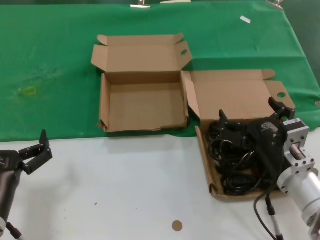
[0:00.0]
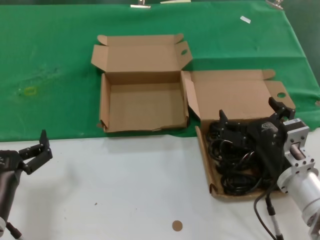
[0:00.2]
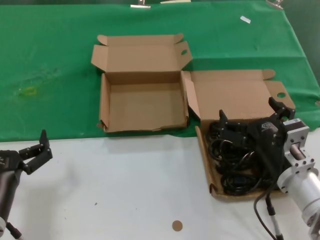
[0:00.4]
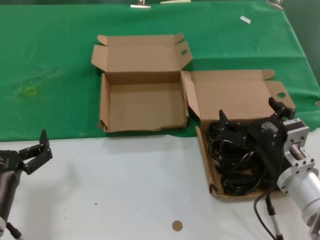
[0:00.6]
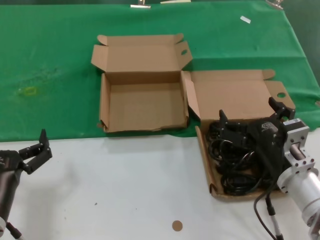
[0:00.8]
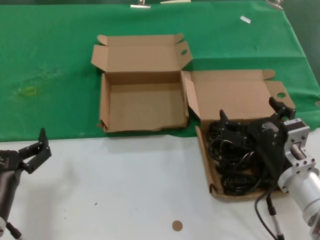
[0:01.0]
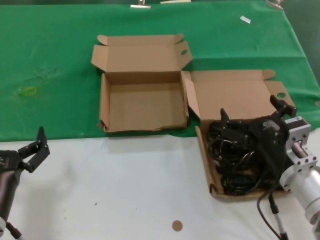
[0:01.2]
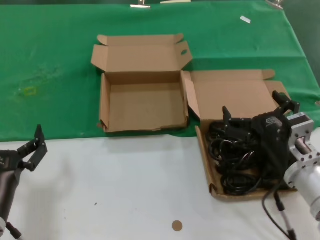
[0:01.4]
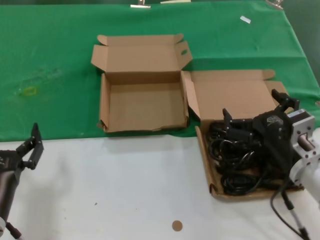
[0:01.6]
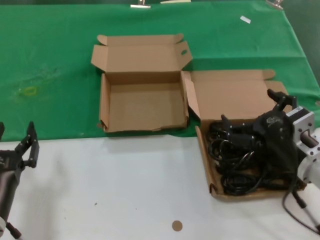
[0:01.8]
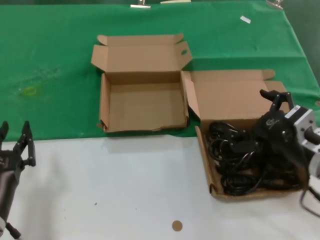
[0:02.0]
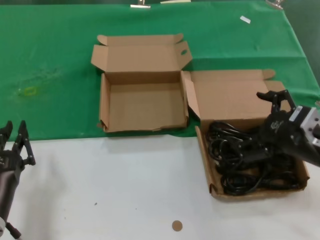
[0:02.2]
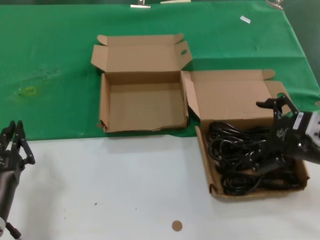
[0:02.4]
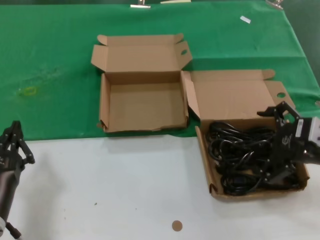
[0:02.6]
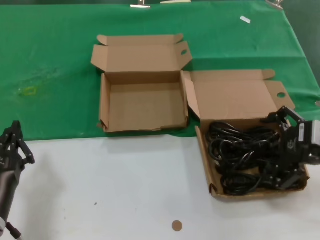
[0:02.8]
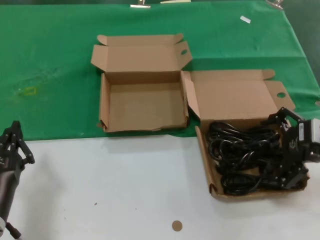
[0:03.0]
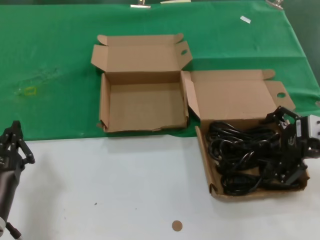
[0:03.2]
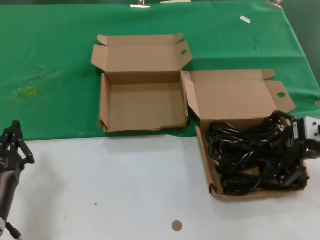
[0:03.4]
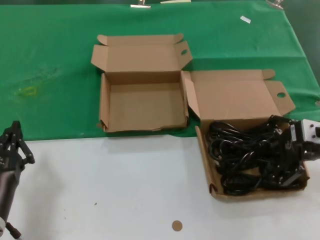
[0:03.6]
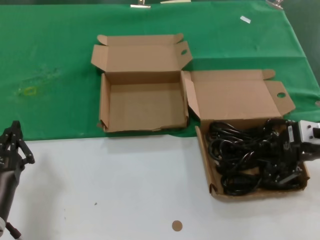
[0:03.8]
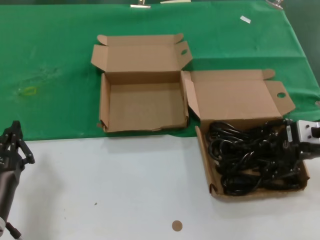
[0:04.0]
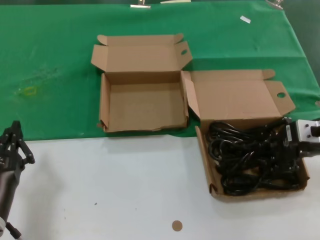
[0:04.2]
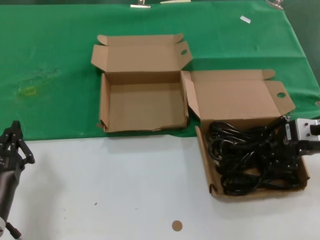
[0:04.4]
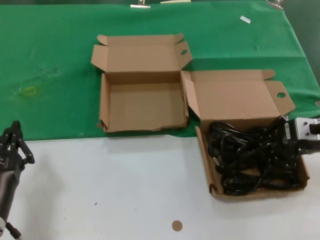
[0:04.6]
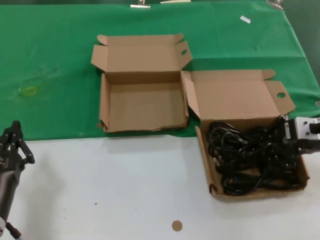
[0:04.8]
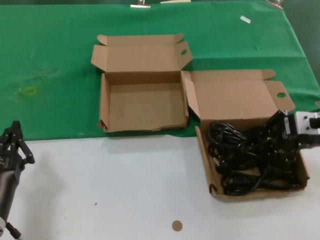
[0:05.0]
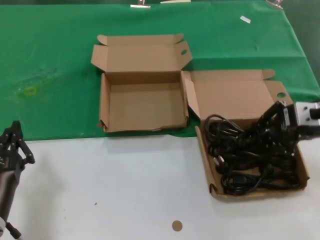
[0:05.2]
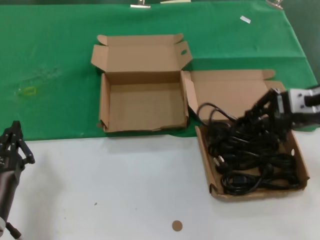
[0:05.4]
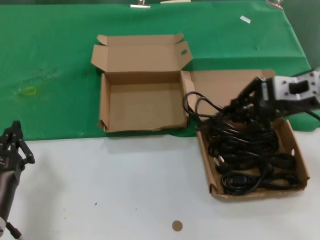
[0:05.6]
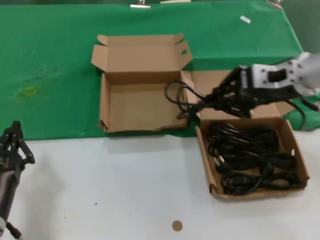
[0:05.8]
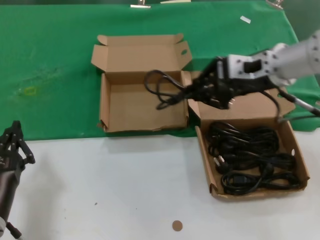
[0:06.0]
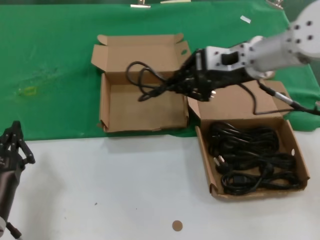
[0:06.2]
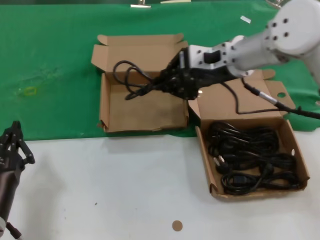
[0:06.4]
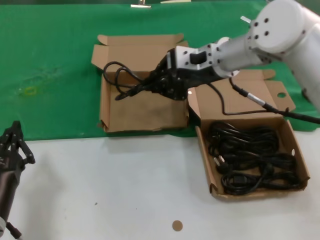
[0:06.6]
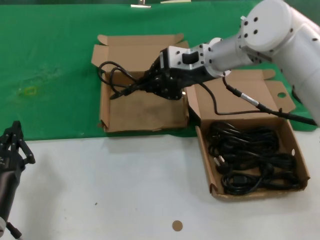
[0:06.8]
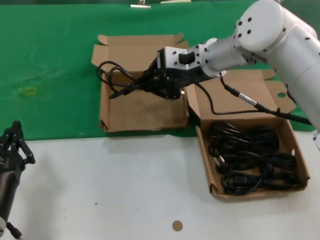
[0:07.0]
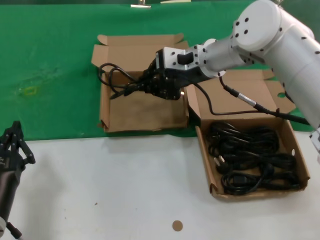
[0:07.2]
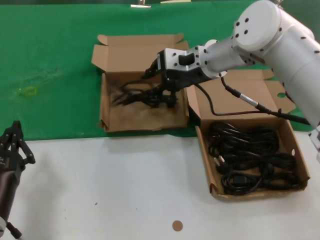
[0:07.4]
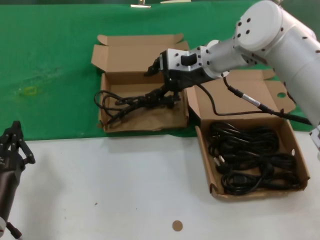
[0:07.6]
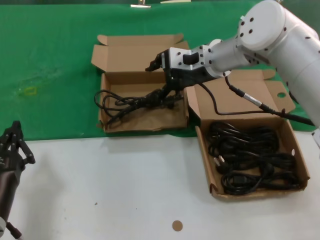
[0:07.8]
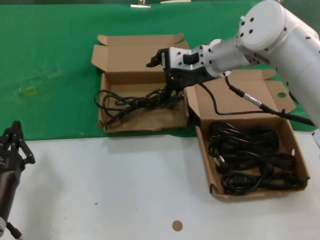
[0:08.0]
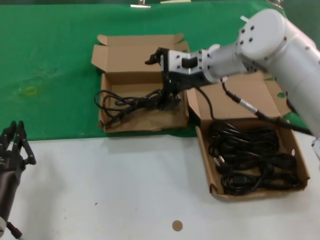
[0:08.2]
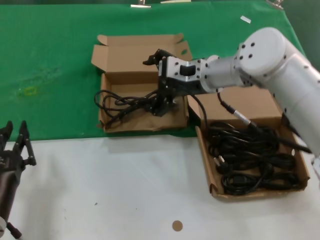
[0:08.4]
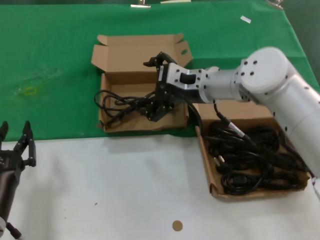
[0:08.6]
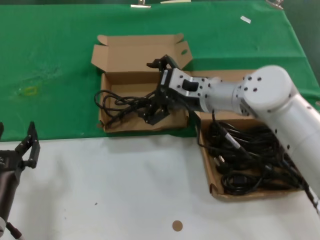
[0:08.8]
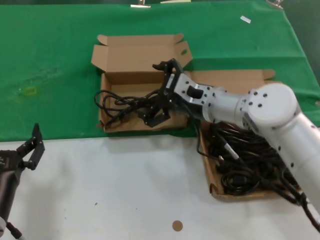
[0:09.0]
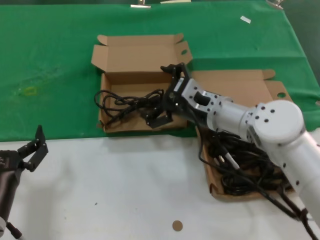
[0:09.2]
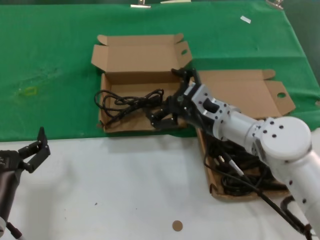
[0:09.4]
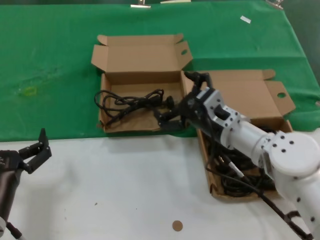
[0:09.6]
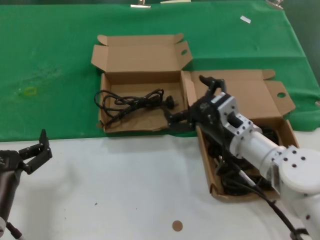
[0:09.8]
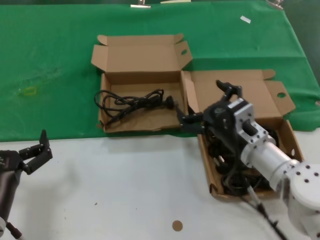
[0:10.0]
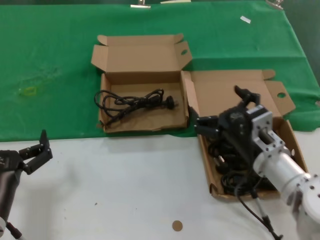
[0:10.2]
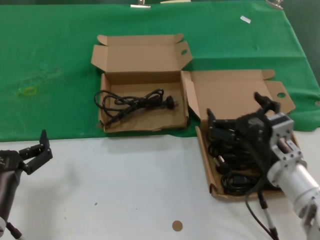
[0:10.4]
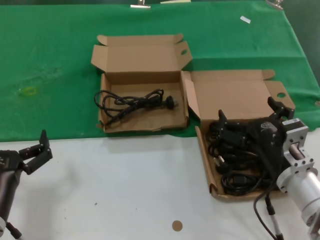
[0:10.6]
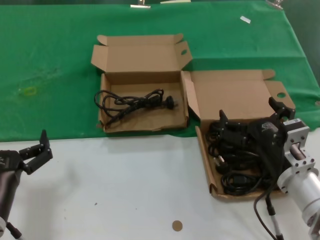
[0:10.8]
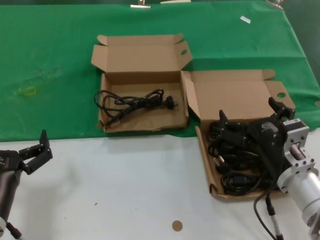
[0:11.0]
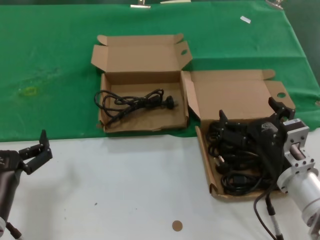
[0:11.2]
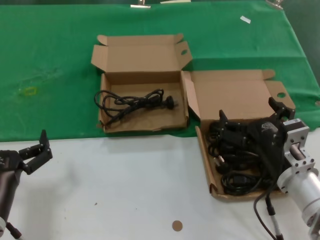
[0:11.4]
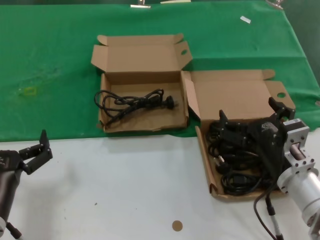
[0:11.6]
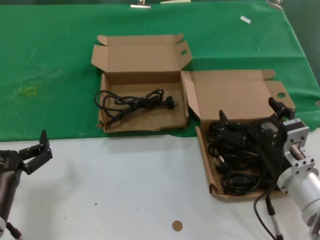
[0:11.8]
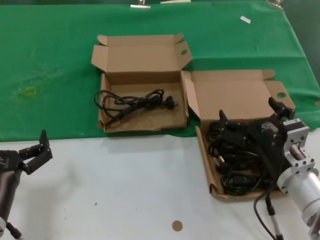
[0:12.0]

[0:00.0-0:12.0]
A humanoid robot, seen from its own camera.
Task of the whole recording: take the parts from the box containing them and put them into an empty box.
Step, 0:00.0 to 0:04.6: Grasp the data cable.
Step, 0:04.8 to 0:07.4: Place the data cable in the another box.
0:00.0 to 0:01.6: There are only small adjustments of the hands.
0:01.6 to 0:03.0: The right hand goes approximately 15 cm upward and to the right.
0:03.0 to 0:04.4: The right hand ends up approximately 5 cm from where it was.
0:04.4 to 0:06.0: The right hand travels to the left, upward and forward by about 15 cm.
0:06.0 to 0:07.6: The right hand is displaced to the left and forward by some 15 cm.
0:07.6 to 0:09.0: The right hand moves downward and backward, approximately 10 cm.
0:09.0 to 0:10.4: The right hand moves backward, downward and to the right, about 20 cm.
0:10.4 to 0:12.0: The hands stay close to where they were, moving slightly.

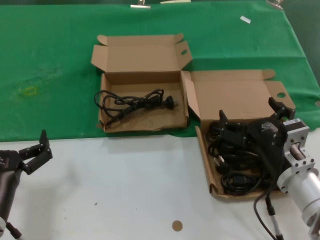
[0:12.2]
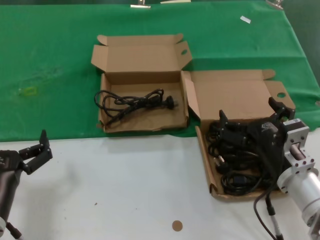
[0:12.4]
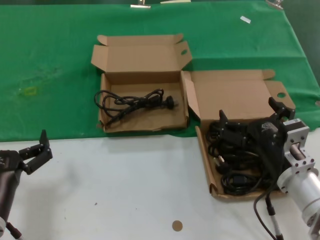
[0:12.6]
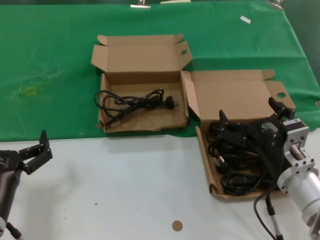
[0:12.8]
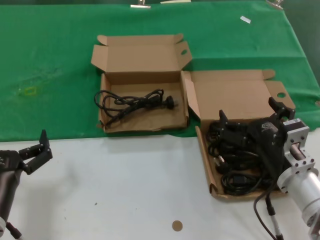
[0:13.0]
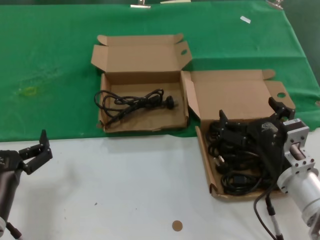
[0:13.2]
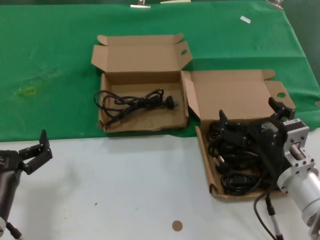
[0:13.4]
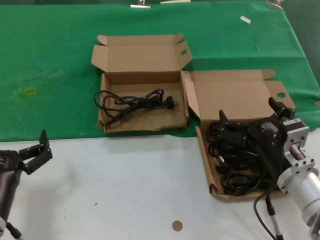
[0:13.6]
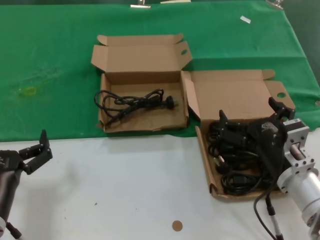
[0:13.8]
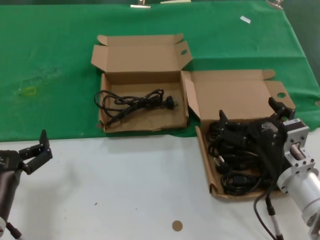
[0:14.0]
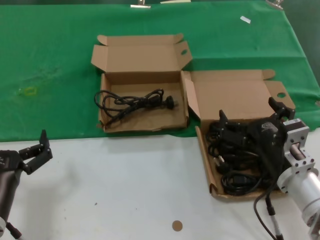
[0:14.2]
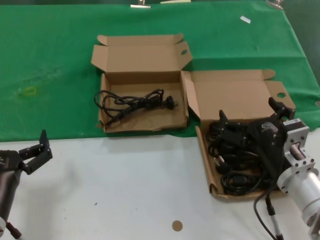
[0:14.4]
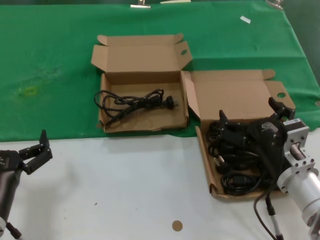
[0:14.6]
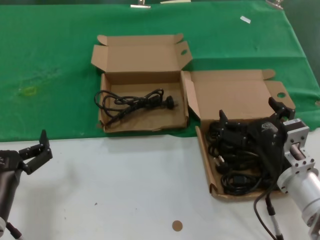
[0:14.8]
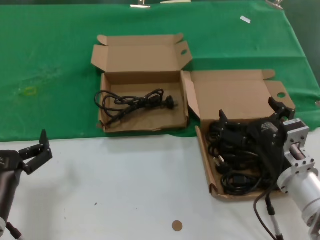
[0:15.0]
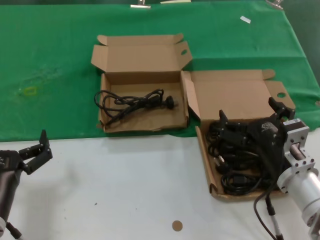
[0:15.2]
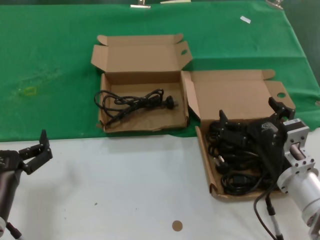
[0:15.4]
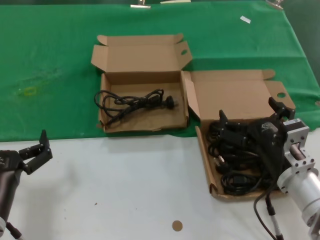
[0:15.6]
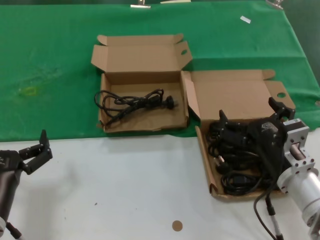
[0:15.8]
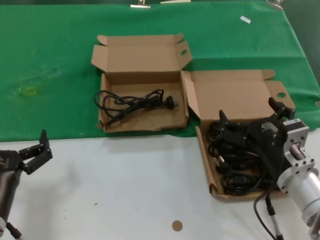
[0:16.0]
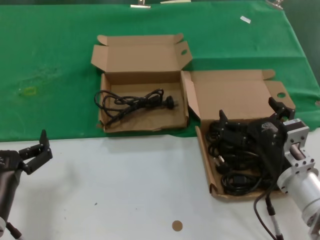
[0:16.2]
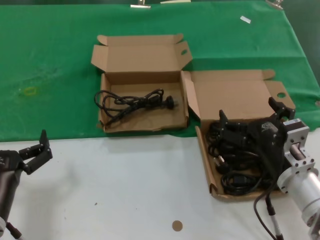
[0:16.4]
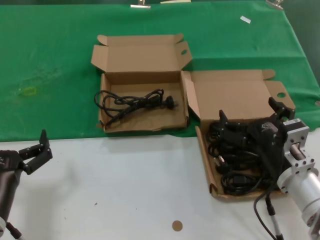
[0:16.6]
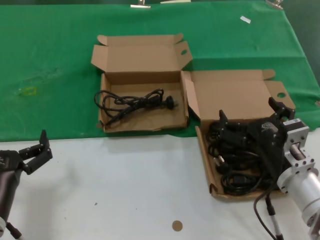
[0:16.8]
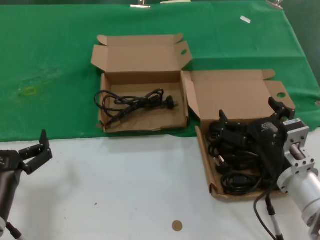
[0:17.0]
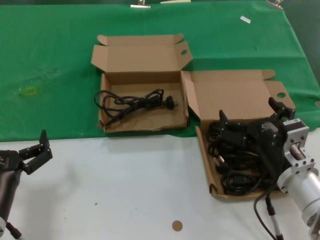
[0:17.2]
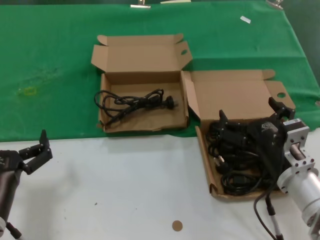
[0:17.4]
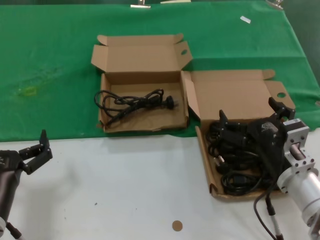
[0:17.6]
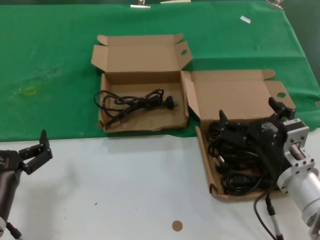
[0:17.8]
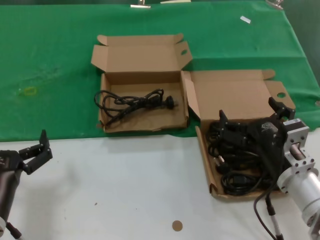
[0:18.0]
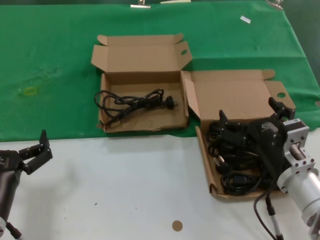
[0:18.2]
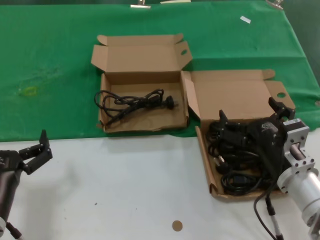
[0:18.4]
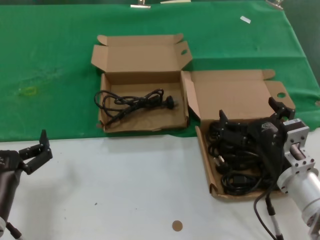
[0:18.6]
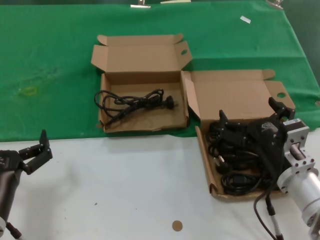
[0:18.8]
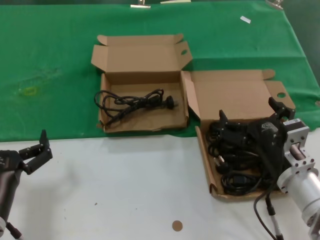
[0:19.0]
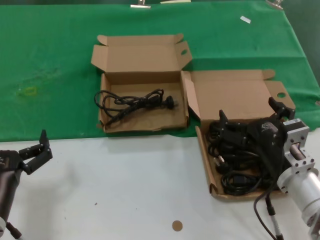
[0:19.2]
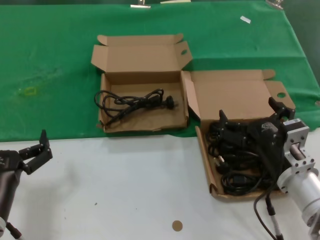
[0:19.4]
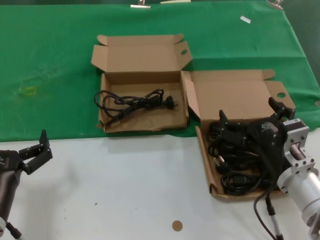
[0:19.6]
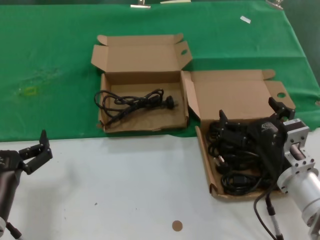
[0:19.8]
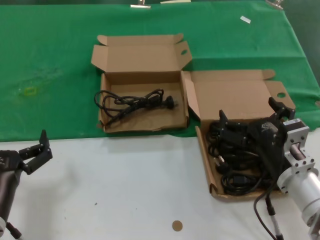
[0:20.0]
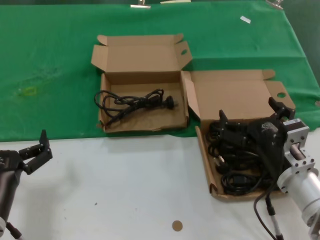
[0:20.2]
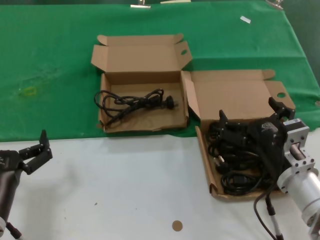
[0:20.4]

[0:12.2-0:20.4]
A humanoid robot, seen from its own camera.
Task of the whole recording: take the parts from the box containing them and put them into an empty box.
0:12.2 to 0:20.4: Both hands stay put.

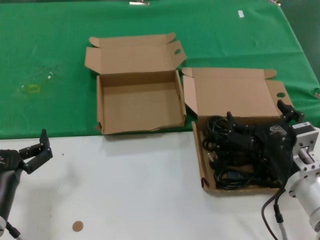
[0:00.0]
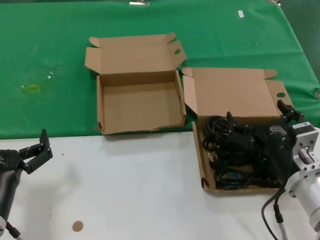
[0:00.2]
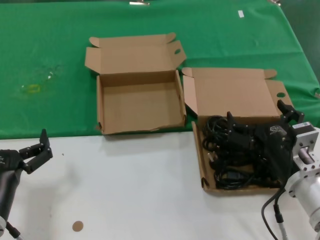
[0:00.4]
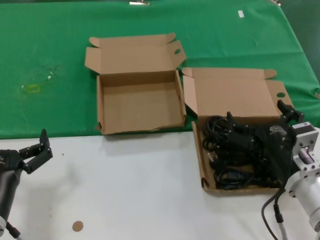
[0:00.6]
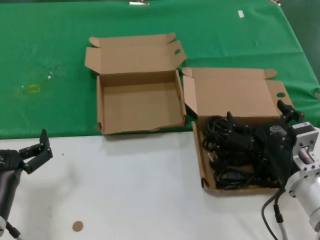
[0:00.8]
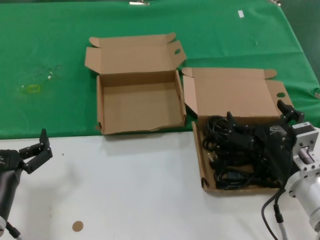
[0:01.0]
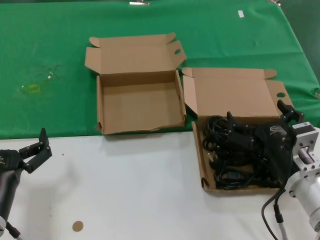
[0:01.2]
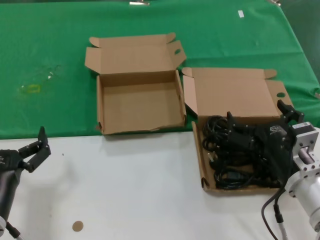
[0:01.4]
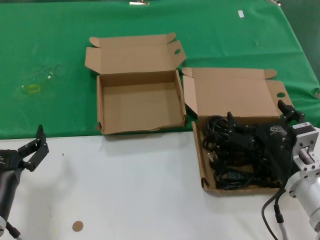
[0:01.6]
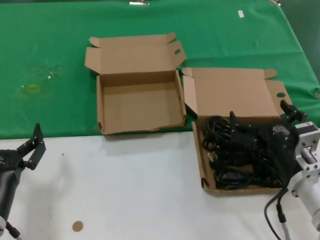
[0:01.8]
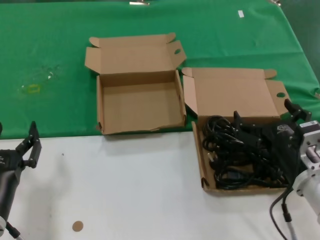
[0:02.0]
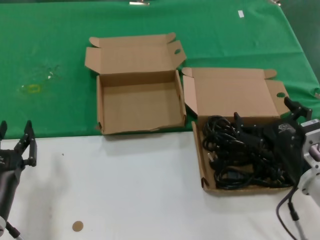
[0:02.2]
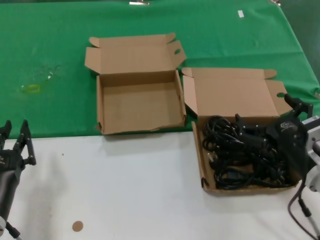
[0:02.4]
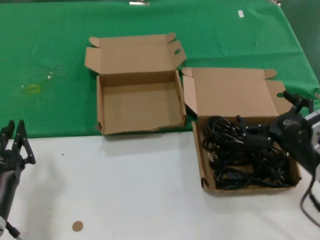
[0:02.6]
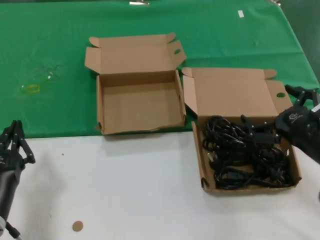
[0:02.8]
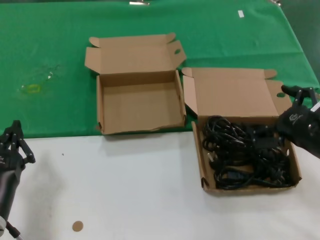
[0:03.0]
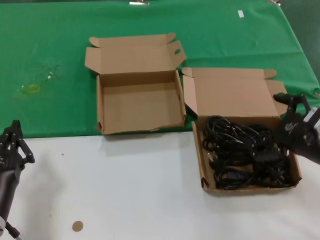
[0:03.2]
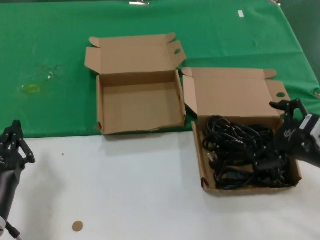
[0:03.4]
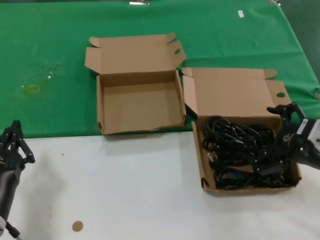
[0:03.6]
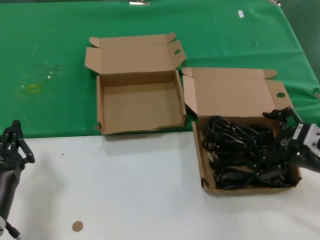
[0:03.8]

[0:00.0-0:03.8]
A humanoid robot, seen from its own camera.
Task of the whole recording: take the parts from the box containing them and put them into an empty box.
0:00.0 to 0:01.2: Both hands stay put.
0:01.2 to 0:02.6: The right hand moves to the right, roughly 5 cm.
0:02.6 to 0:03.8: The right hand shifts by roughly 5 cm.
